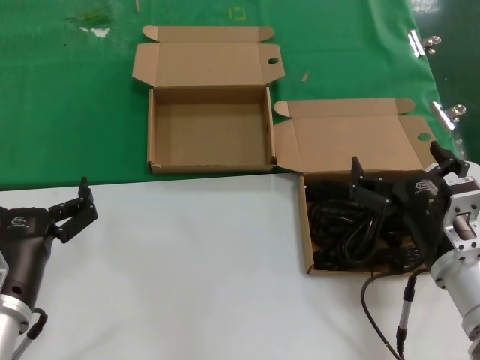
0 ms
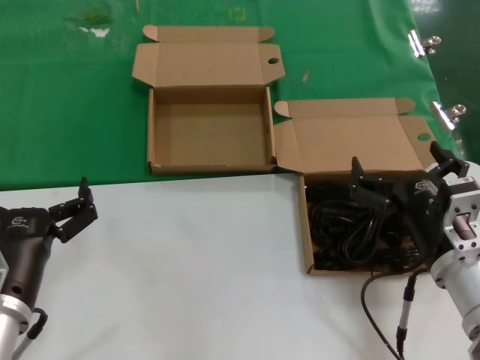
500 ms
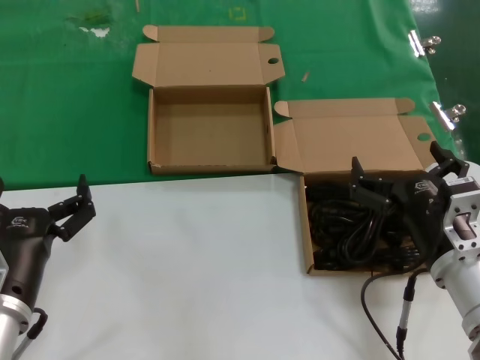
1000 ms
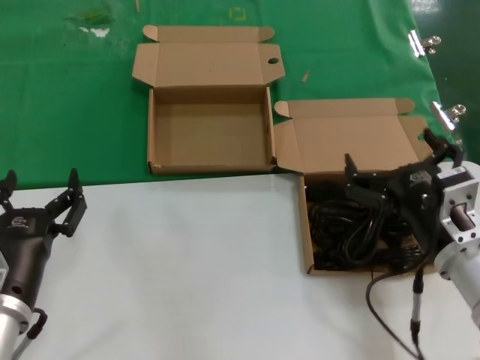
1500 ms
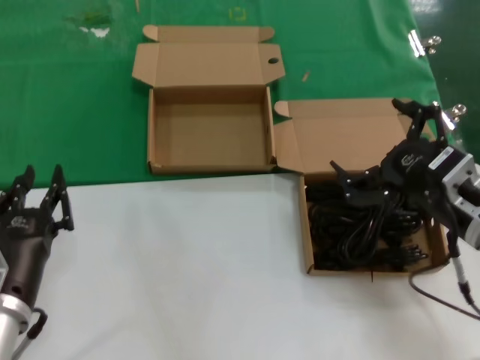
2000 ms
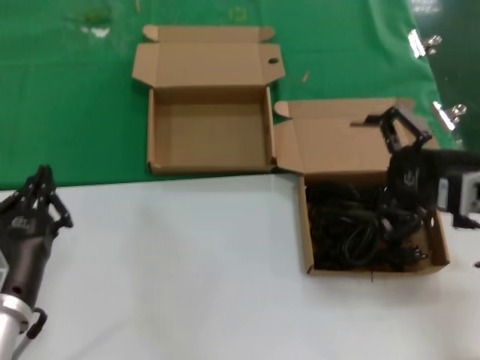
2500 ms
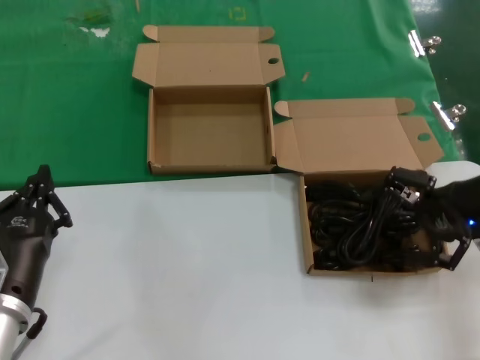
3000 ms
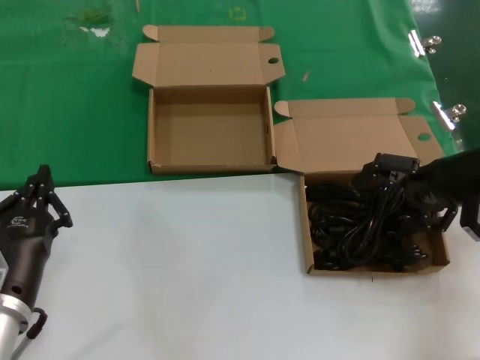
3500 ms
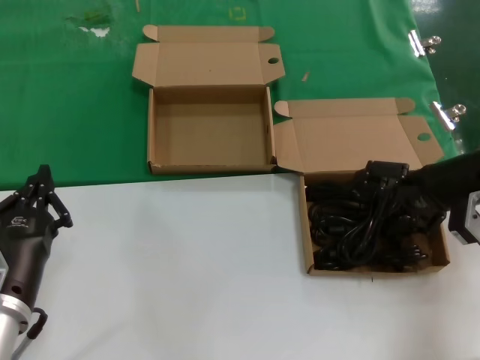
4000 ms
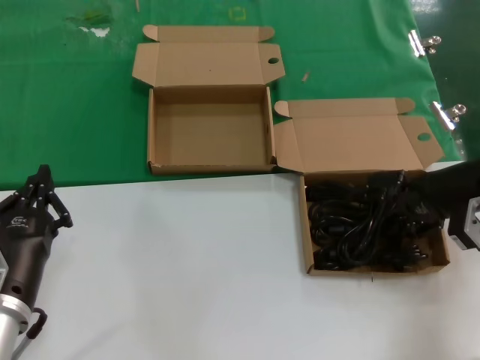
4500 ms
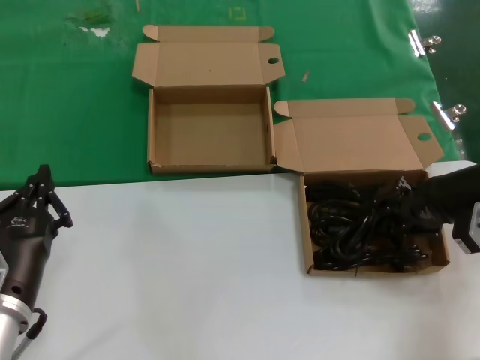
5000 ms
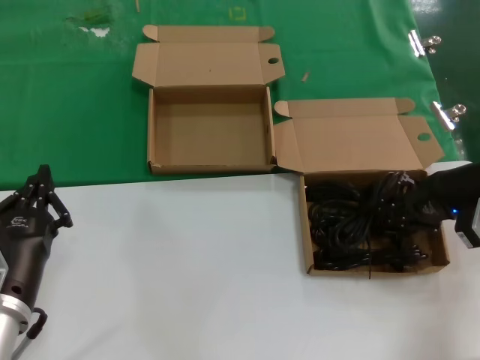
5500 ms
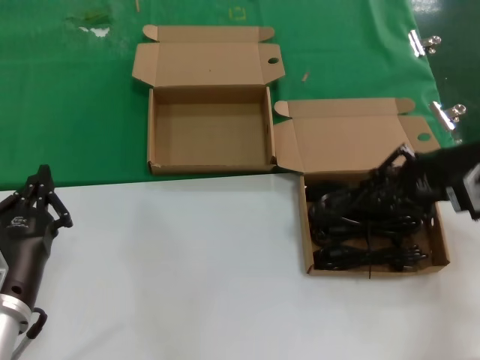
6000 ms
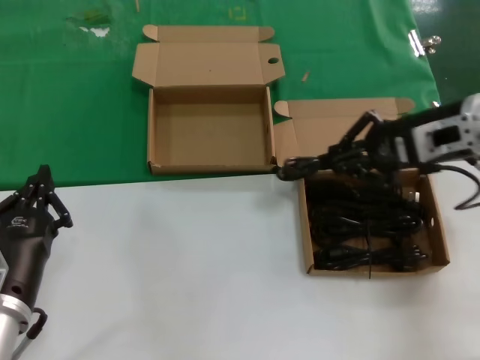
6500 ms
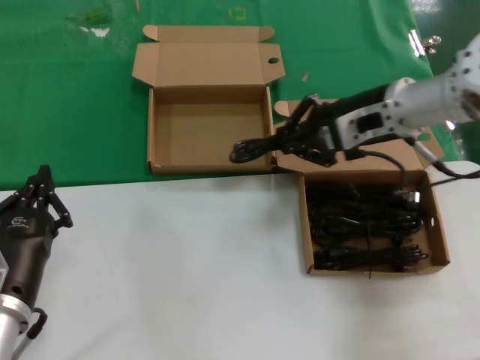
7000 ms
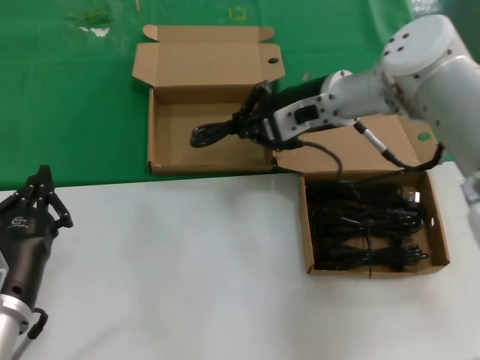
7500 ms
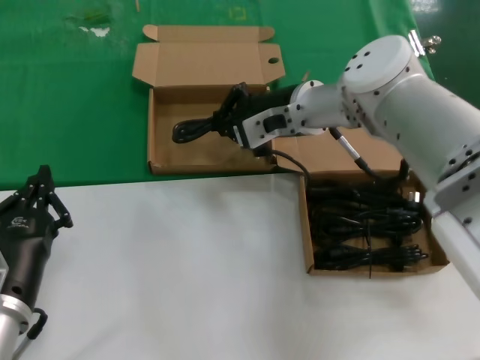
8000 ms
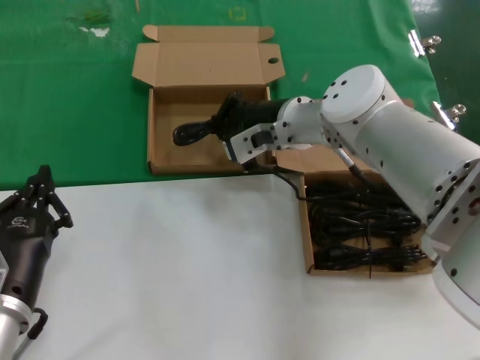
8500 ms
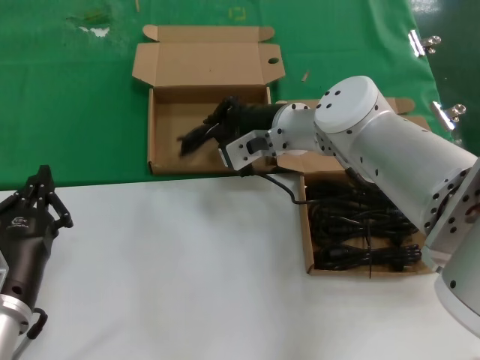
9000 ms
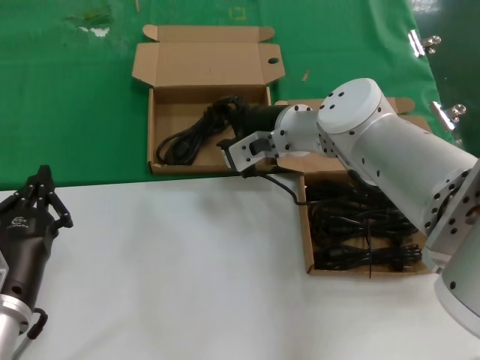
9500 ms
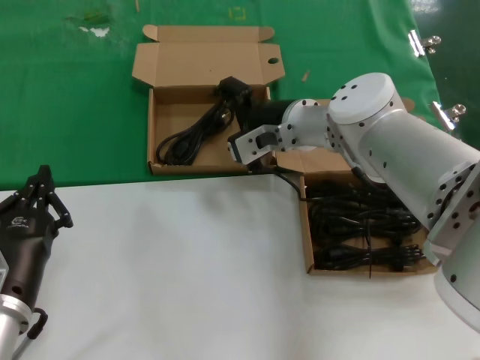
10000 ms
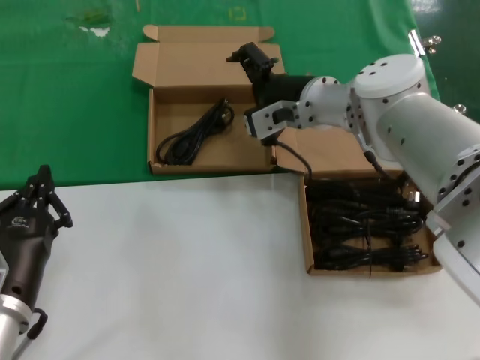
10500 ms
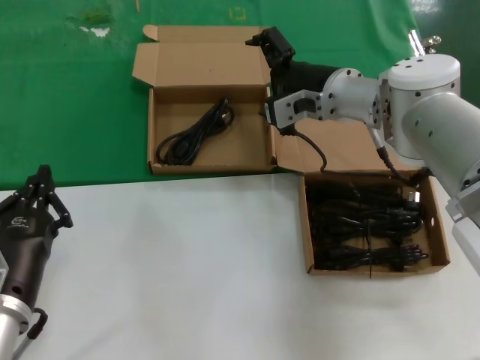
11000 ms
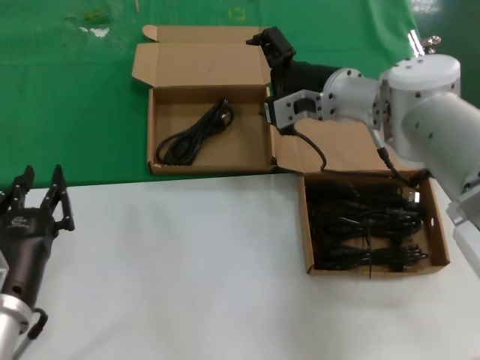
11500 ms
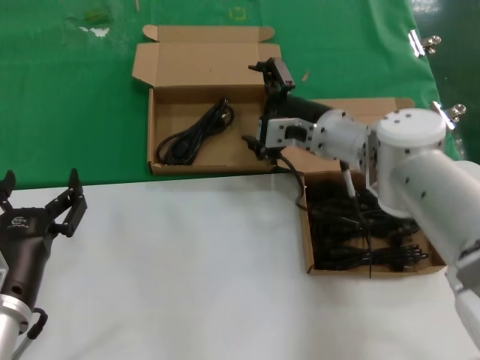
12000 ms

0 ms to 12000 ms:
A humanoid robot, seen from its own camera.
Task of the whole recording: take the parts from the box containing them and put them into an empty box.
Step, 0 ms to 5000 ms: Grasp the data cable.
Step, 5500 ms to 9000 ms: Place the data cable in the another box.
0 ms to 2000 ms: The right hand heads upward, covering some 5 cm.
2000 ms to 4000 ms: The right hand moves forward and to the right, some 15 cm.
6000 ms to 8000 ms: The right hand shifts approximately 25 cm to the left and forward.
8000 ms to 10000 ms: The hands make only small movements.
10000 ms to 12000 ms: The right hand shifts by some 5 cm.

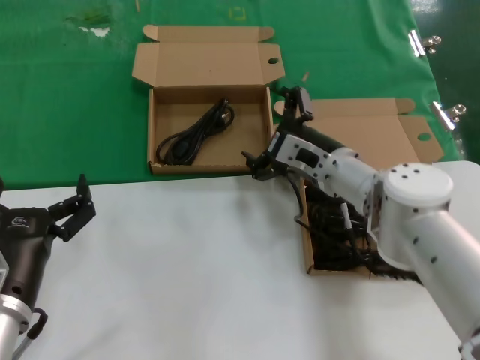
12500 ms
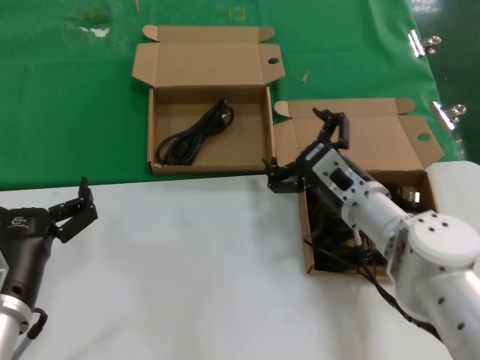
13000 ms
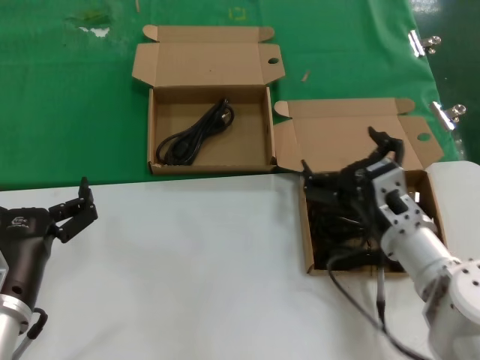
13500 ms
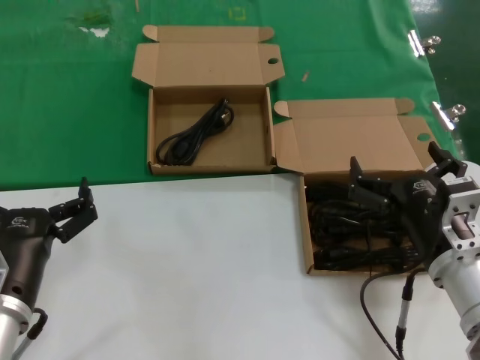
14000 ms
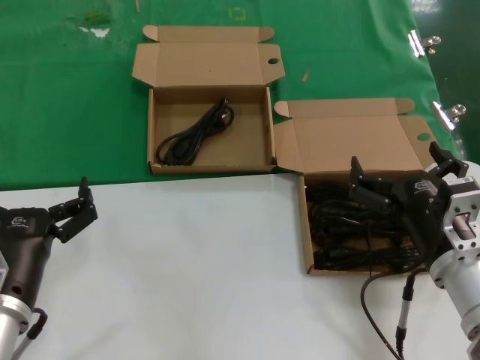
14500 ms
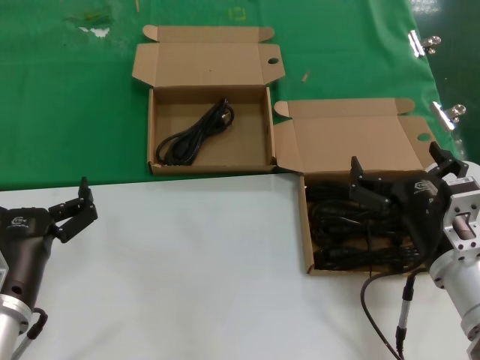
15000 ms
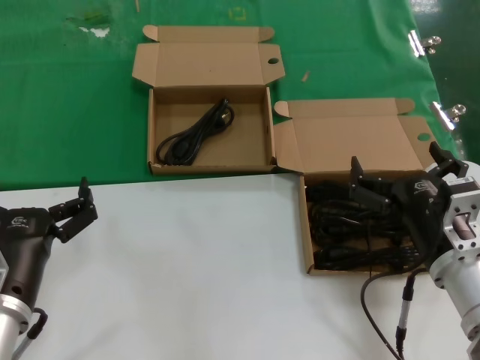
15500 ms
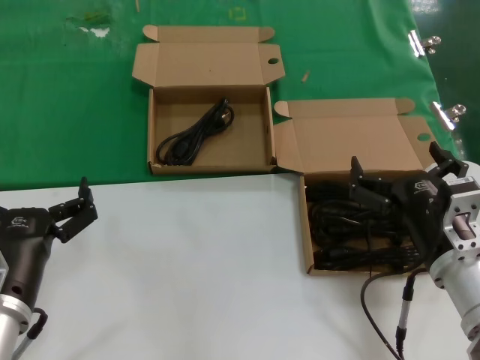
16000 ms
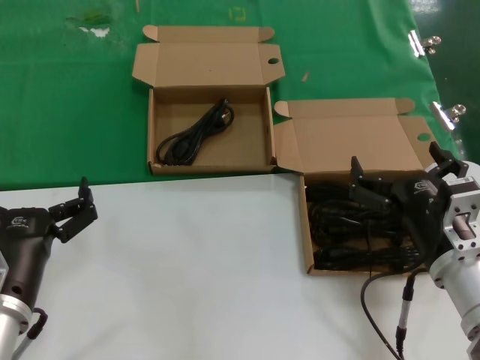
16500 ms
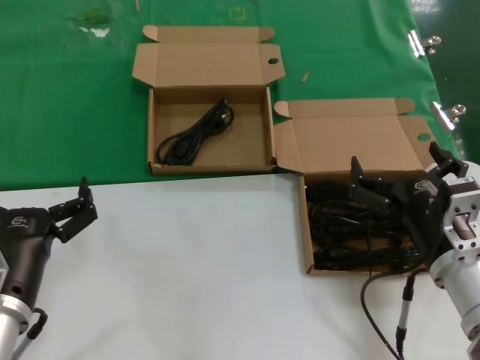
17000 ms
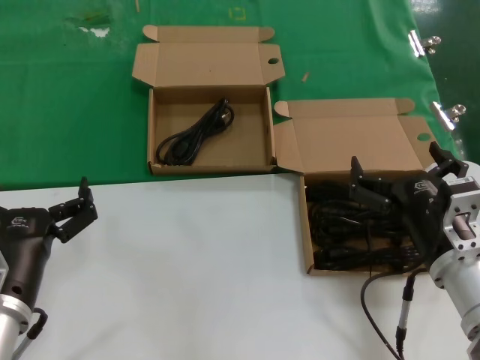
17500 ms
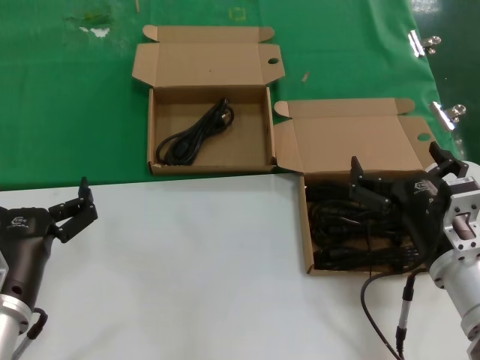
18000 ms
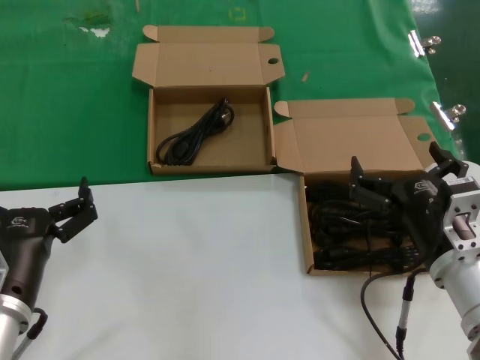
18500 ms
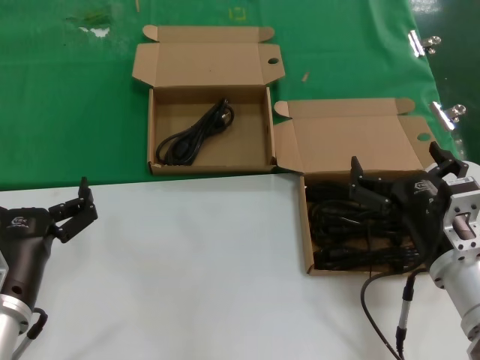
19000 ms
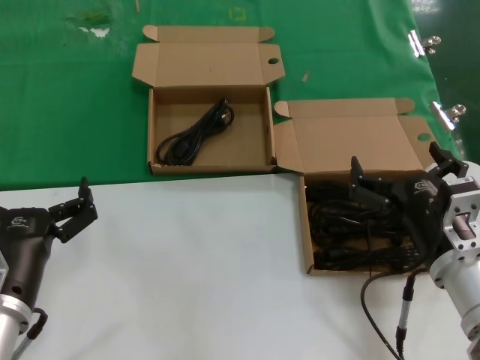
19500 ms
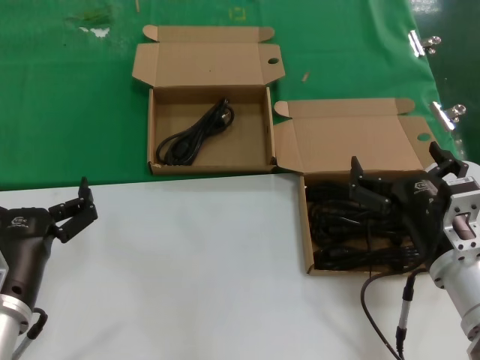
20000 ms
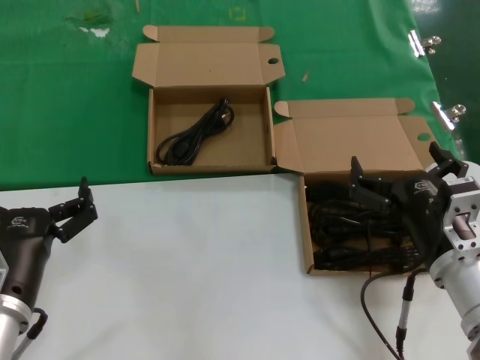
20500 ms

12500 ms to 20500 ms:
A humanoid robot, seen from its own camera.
Task of the whole recording: take the parts from the box containing them and put them into an empty box.
12500 ms to 14500 ms: The right hand is displaced backward and to the right by approximately 20 cm.
14500 ms to 20500 ms: Neither hand changes place.
